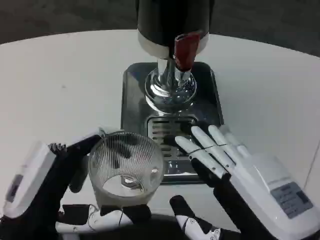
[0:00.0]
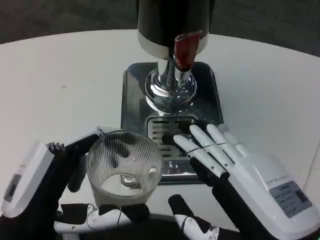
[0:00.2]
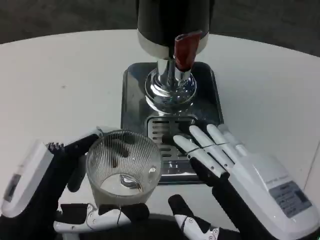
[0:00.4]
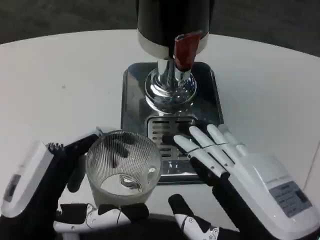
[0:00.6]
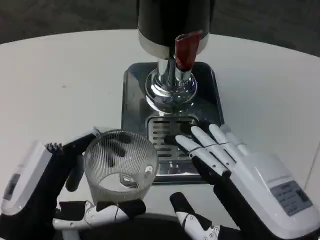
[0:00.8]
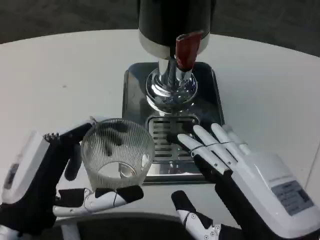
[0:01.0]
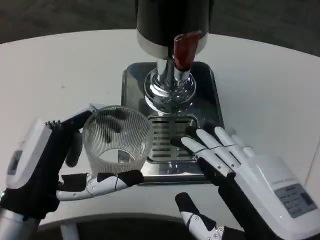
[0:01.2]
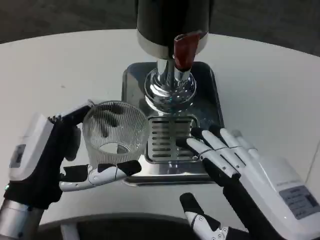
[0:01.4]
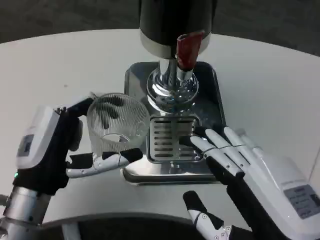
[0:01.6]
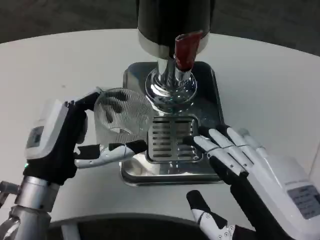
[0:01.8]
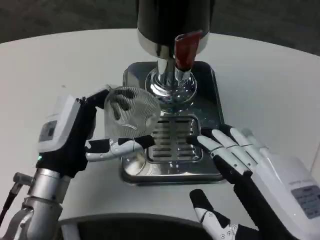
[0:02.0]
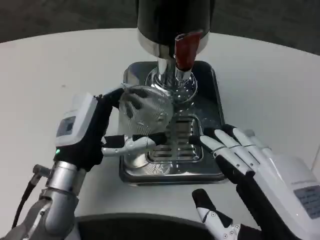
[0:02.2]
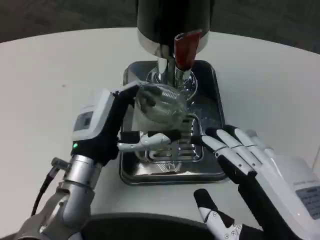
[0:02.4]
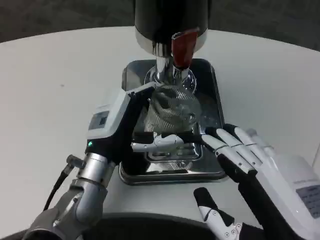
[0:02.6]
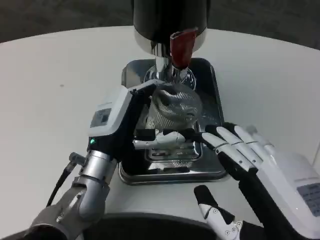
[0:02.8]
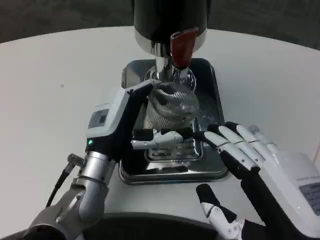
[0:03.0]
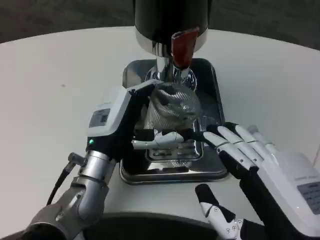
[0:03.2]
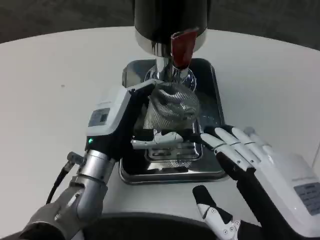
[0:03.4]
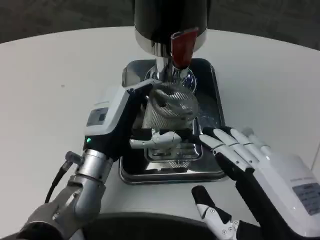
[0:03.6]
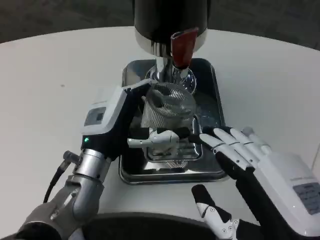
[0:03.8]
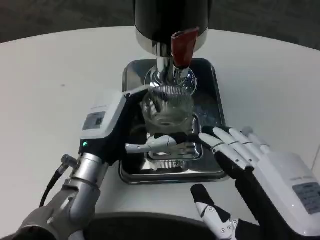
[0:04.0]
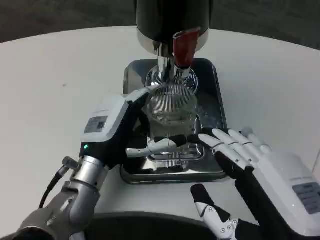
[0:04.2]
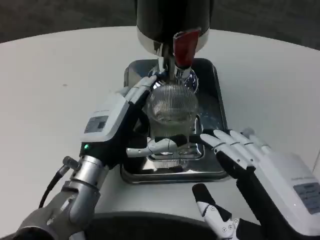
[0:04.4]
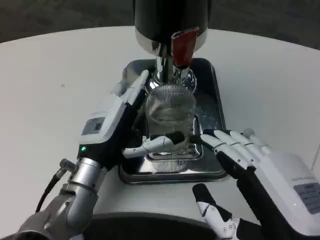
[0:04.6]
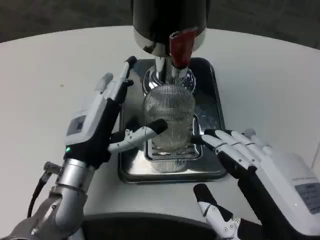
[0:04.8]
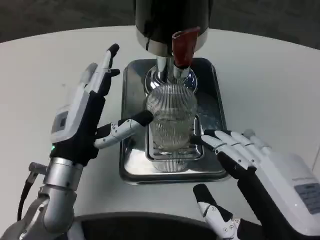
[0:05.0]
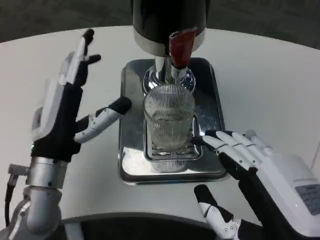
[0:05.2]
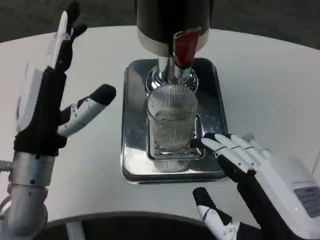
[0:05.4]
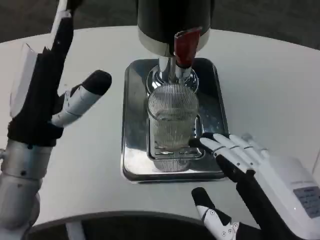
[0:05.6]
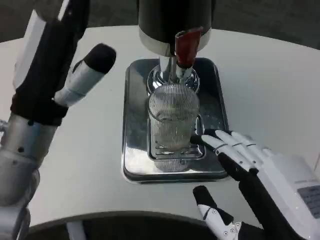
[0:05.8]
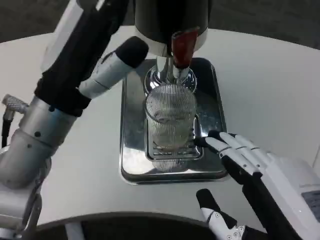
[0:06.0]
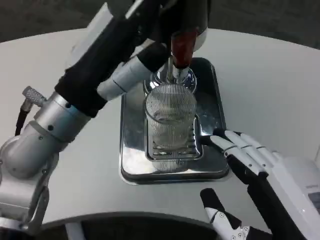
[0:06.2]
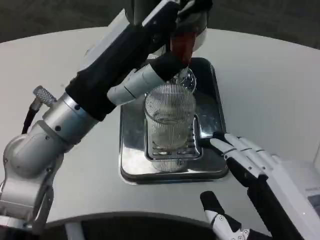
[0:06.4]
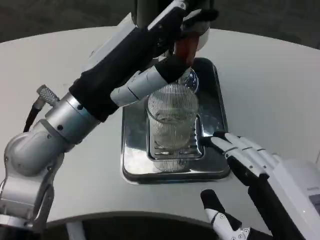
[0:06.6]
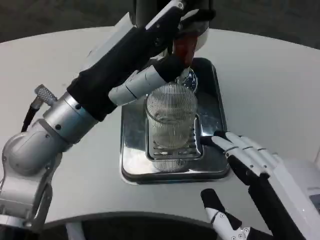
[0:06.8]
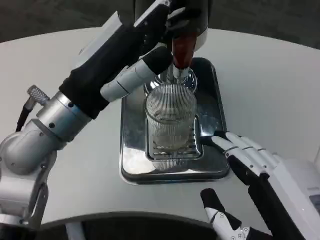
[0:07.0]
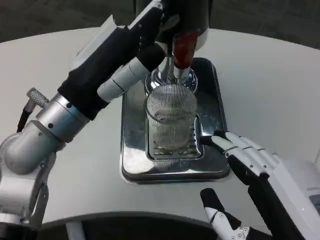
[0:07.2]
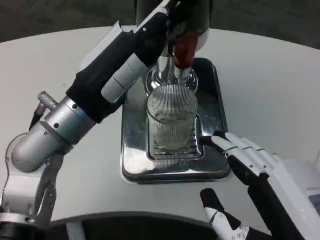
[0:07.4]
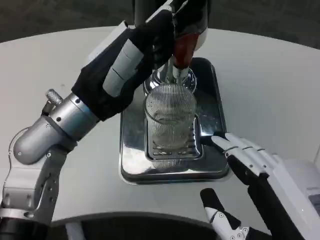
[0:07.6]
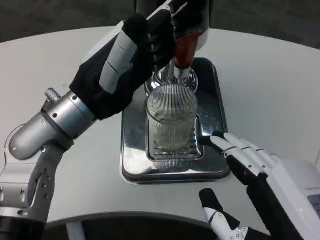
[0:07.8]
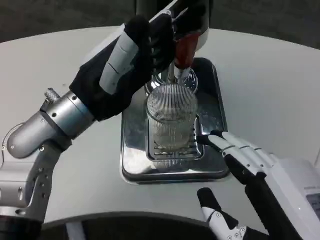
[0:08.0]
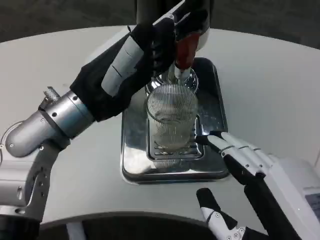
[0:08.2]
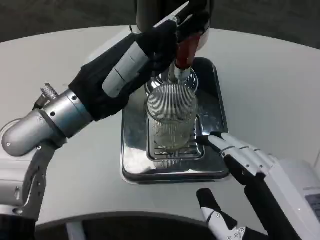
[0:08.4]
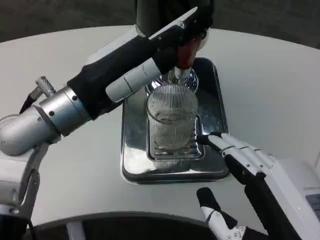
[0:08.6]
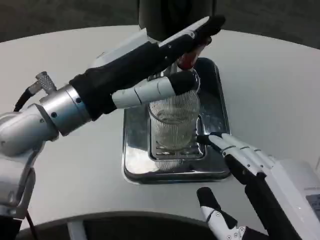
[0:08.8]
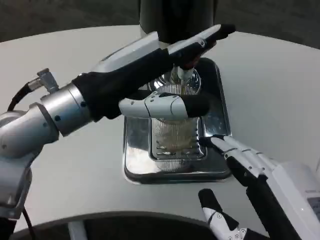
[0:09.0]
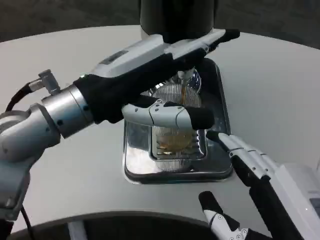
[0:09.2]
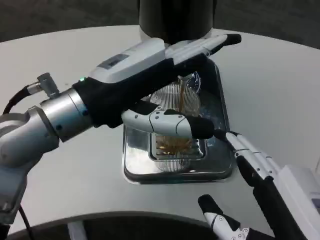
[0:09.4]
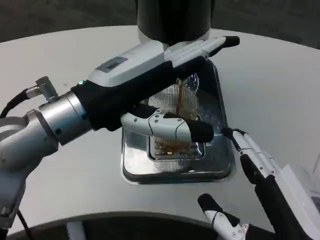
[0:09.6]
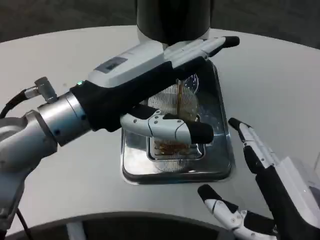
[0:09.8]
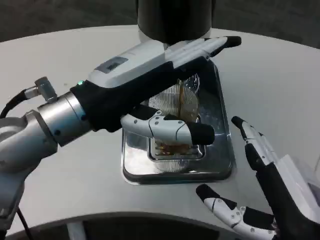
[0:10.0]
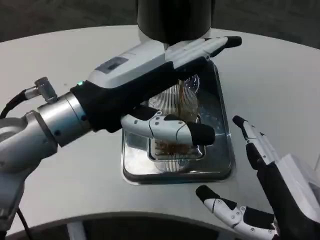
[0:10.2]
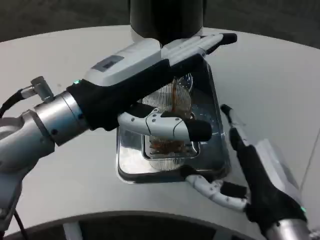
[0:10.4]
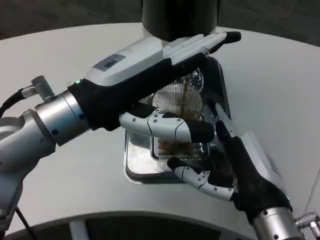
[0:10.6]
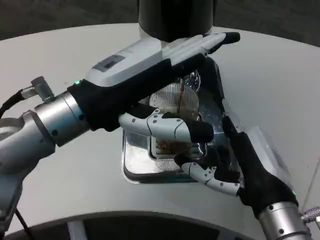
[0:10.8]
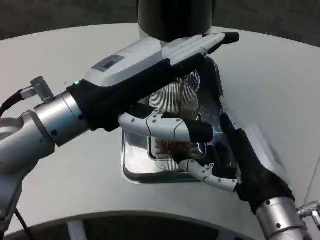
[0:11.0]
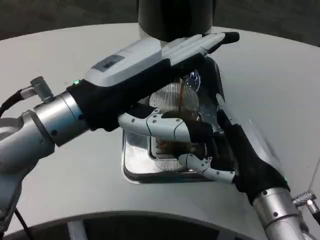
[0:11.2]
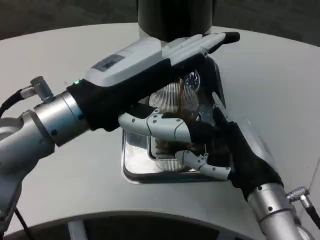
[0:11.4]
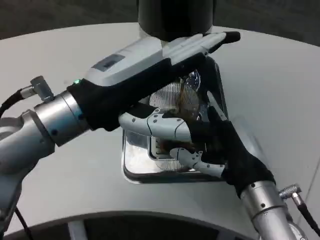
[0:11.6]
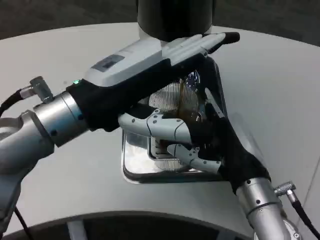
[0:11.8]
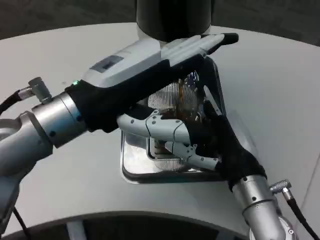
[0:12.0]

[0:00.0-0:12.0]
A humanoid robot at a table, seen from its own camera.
Task of the whole recording: Grasp the cup under the faucet to collect the drink, then remove the cup.
0:00.0 to 0:01.6: The left hand heads forward, covering about 10 cm.
0:01.6 to 0:03.0: The left hand heads forward and to the right, covering some 10 cm.
0:03.0 to 0:04.4: There are only small adjustments of the hands.
0:04.4 to 0:06.0: The left hand goes about 15 cm upward.
0:09.0 to 0:10.4: The right hand heads forward, covering approximately 10 cm.
0:10.4 to 0:12.0: The right hand moves forward, some 5 cm.

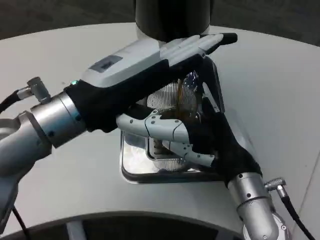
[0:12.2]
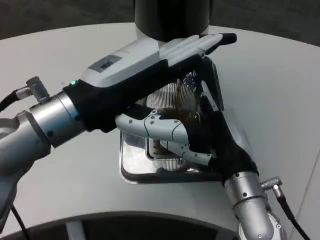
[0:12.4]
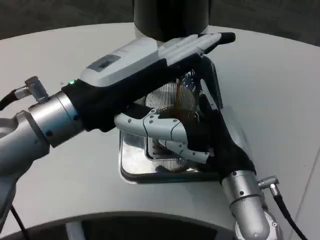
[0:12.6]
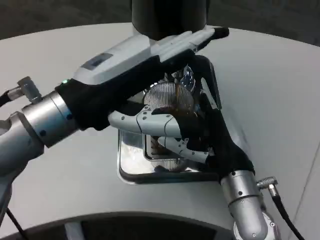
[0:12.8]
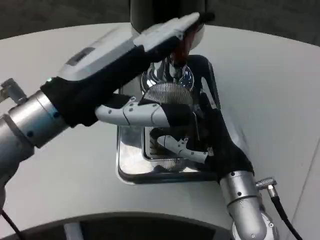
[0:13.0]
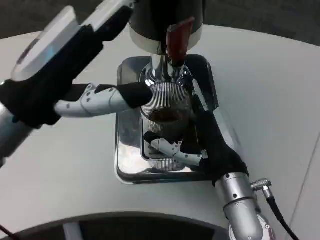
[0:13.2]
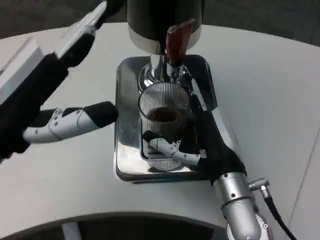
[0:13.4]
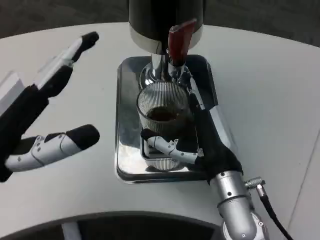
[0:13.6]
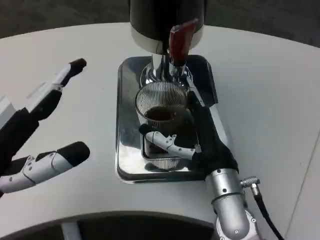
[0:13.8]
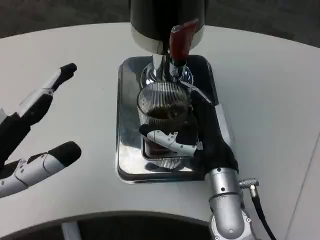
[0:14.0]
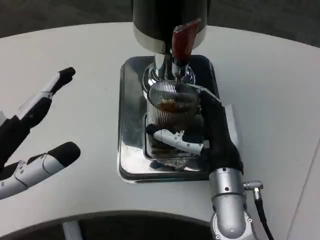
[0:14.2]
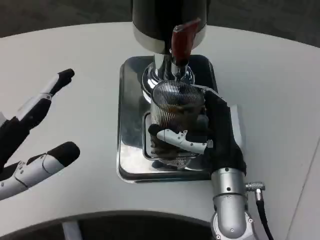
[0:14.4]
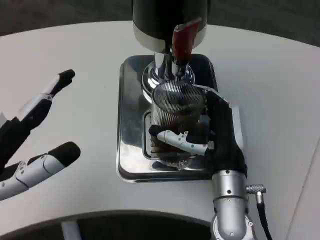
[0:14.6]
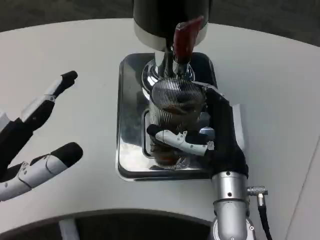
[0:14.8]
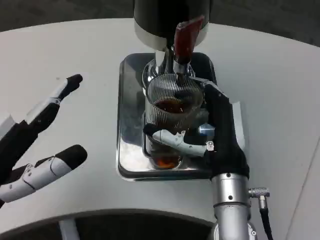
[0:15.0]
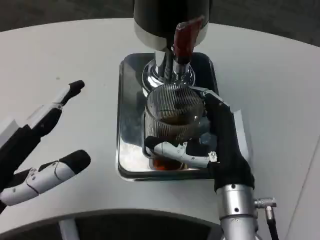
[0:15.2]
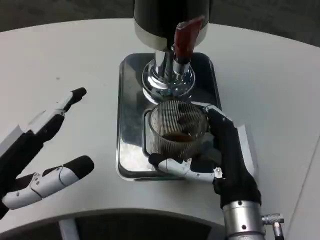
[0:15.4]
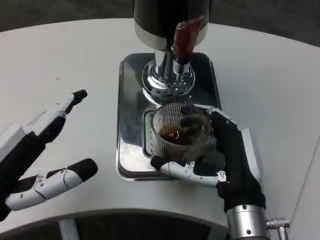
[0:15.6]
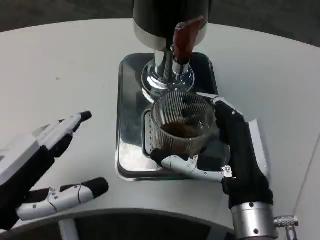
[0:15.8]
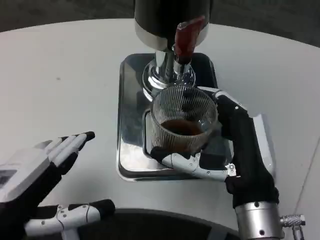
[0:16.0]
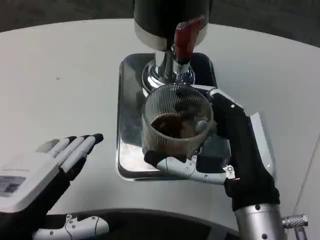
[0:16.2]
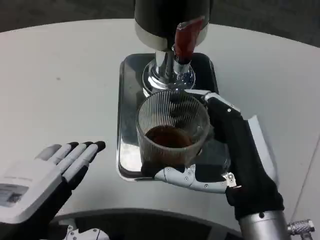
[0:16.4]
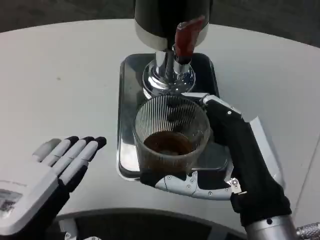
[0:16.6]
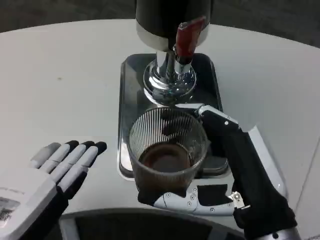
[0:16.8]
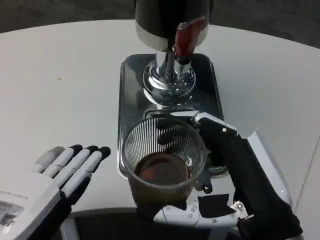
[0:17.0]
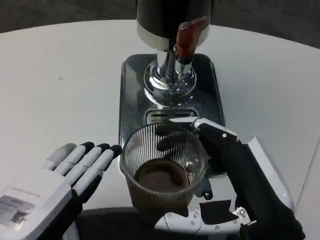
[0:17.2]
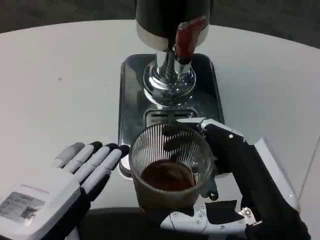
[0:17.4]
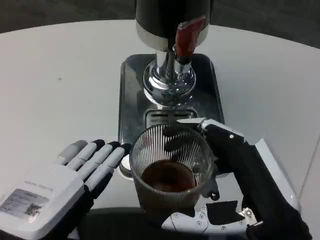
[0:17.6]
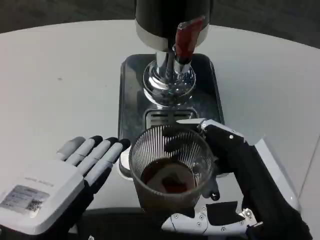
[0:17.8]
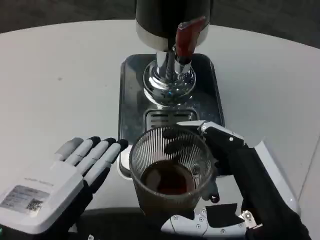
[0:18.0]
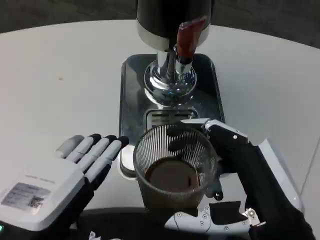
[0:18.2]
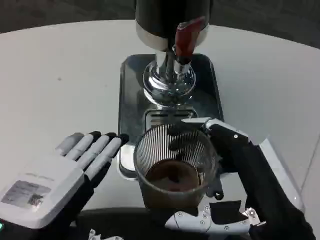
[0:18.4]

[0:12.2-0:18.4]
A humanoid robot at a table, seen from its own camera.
Task of the whole recording: Grasp the cup under the faucet to collect the drink, then remove the cup.
0:12.2 to 0:13.8: The left hand goes roughly 15 cm to the left, backward and downward.
0:13.8 to 0:15.4: The right hand shifts some 5 cm backward.
0:15.4 to 0:16.8: Both hands move backward, approximately 5 cm.

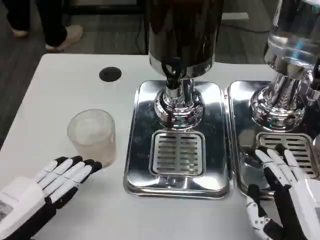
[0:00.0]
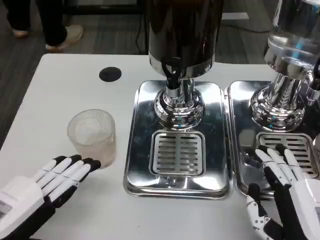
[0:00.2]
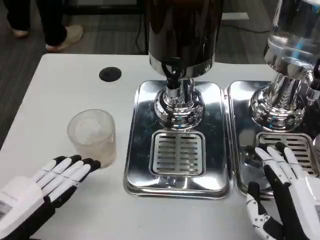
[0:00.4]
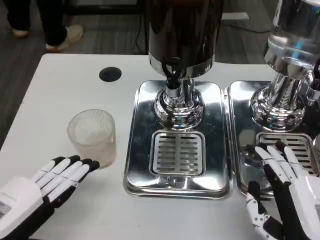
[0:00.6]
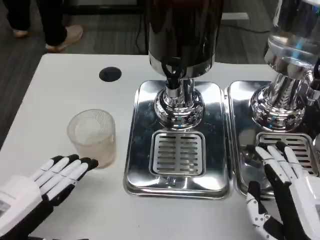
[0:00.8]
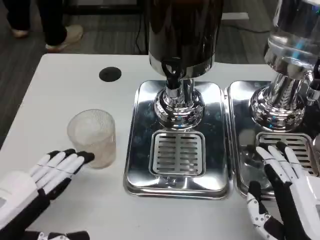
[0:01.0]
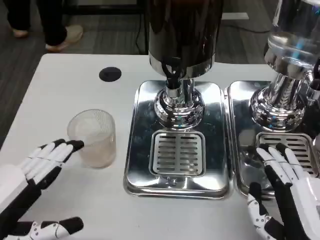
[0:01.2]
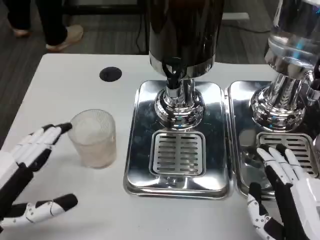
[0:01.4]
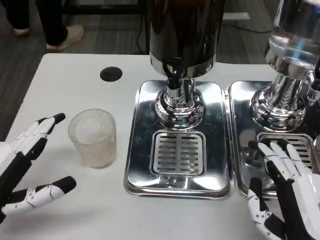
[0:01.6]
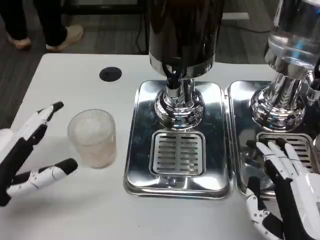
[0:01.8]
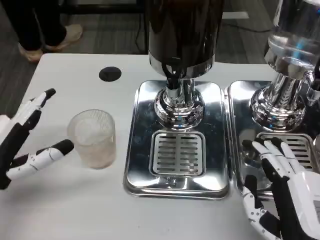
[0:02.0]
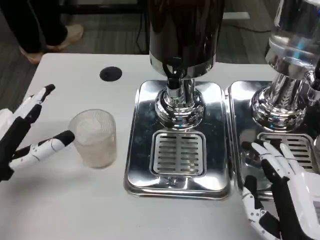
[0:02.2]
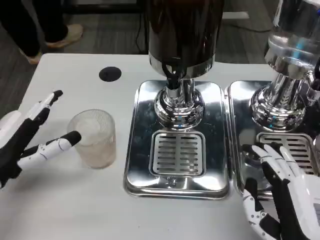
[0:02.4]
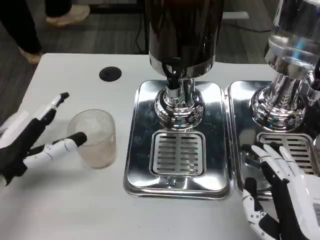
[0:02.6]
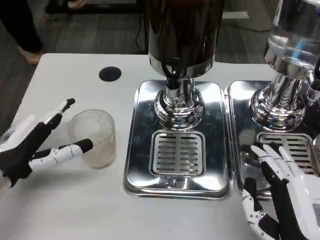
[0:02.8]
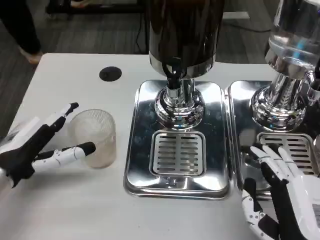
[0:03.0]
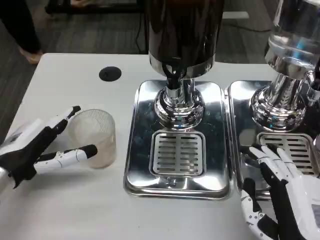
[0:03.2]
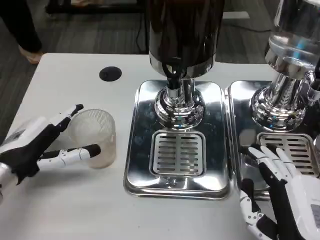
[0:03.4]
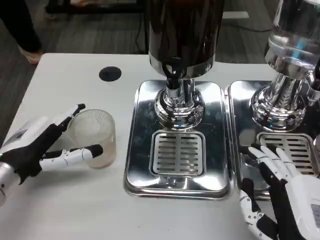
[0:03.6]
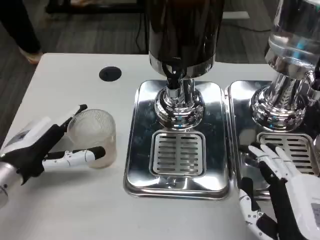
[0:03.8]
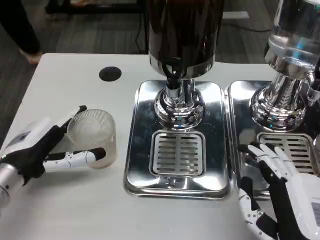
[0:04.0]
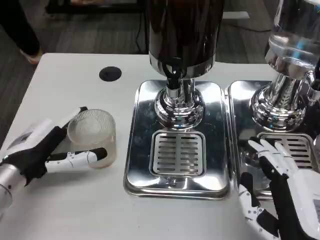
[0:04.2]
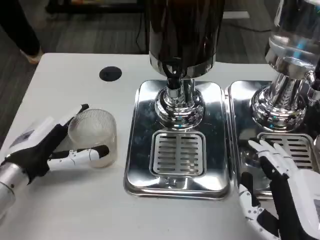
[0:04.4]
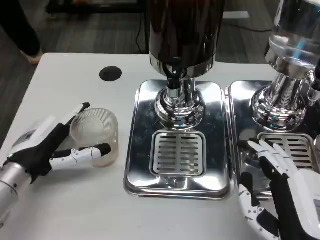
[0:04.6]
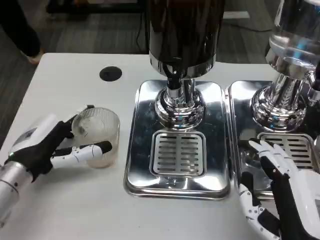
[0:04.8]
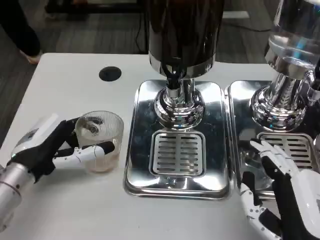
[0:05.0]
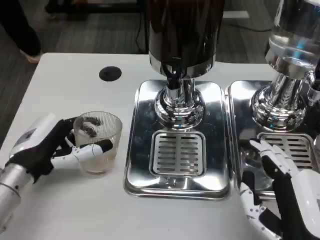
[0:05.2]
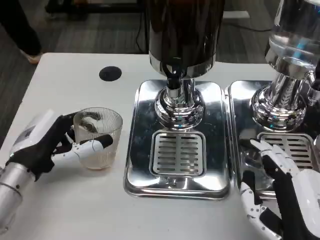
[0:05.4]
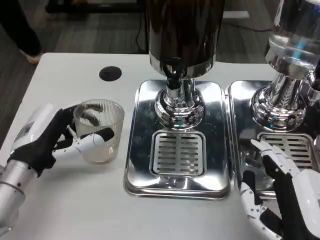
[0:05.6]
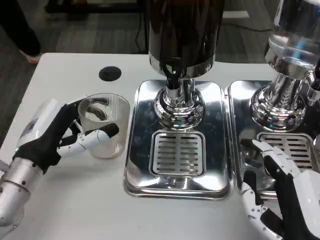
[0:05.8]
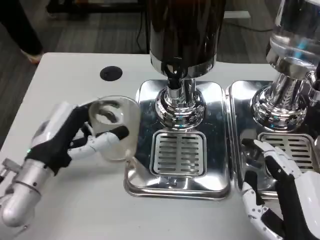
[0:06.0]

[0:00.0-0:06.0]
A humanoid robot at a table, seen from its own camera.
Task of the whole recording: Grasp the cup under the faucet to collect the drink, then remove the cup.
0:01.6 to 0:03.0: The left hand moves forward, approximately 10 cm.
0:03.0 to 0:06.0: The hands move only a little.
